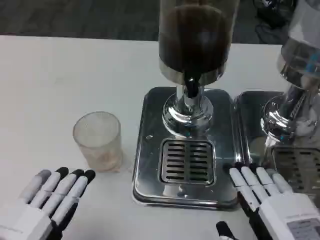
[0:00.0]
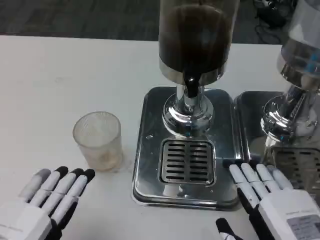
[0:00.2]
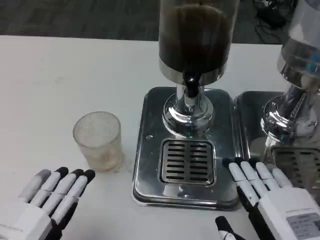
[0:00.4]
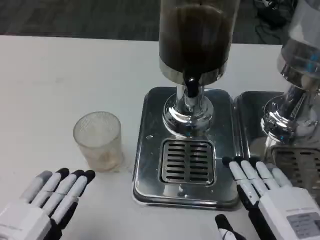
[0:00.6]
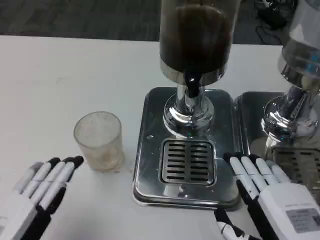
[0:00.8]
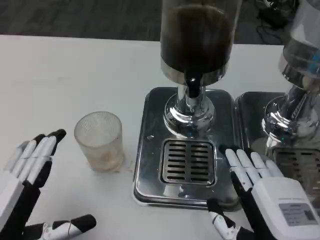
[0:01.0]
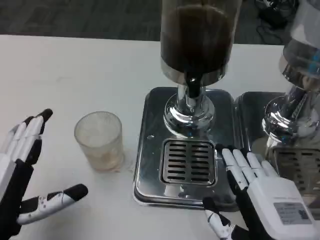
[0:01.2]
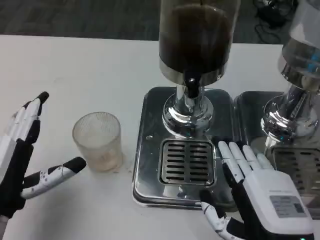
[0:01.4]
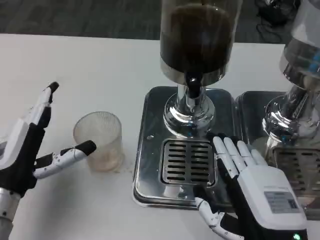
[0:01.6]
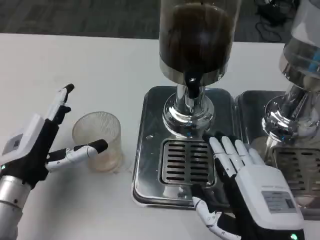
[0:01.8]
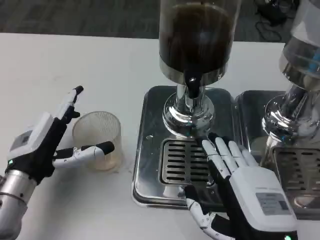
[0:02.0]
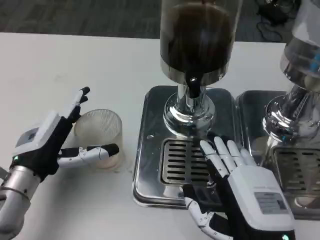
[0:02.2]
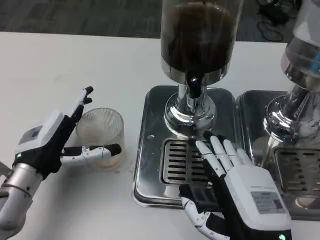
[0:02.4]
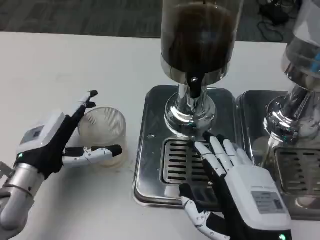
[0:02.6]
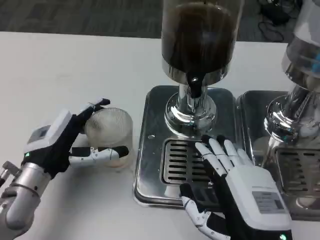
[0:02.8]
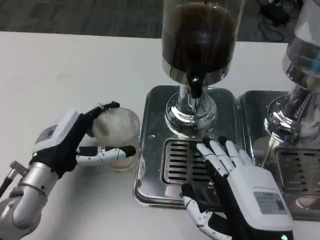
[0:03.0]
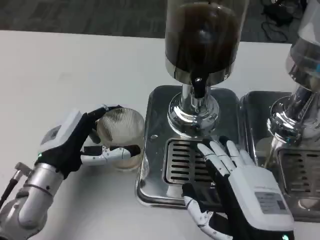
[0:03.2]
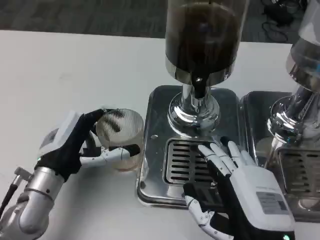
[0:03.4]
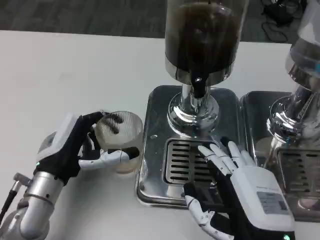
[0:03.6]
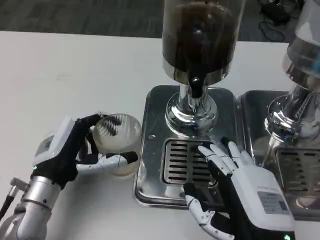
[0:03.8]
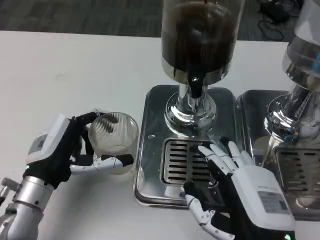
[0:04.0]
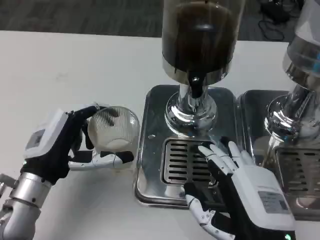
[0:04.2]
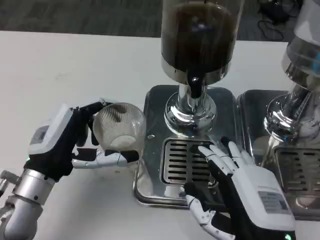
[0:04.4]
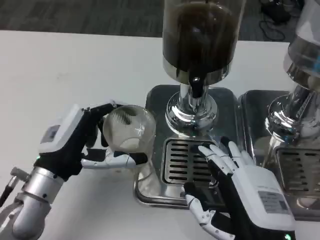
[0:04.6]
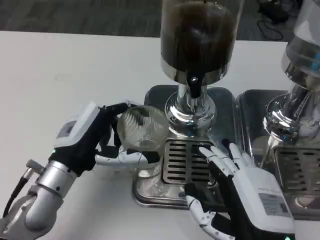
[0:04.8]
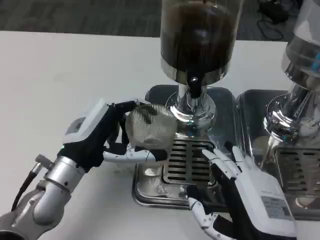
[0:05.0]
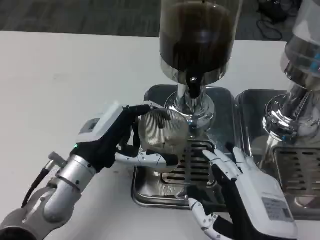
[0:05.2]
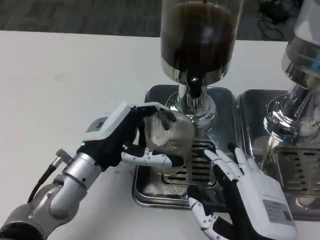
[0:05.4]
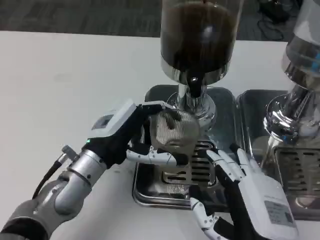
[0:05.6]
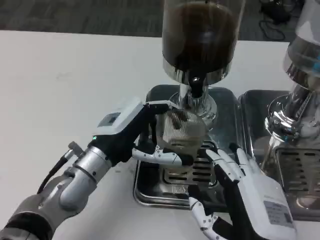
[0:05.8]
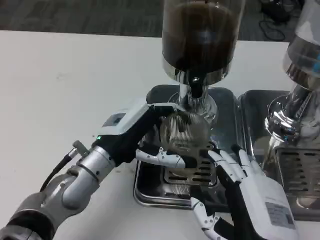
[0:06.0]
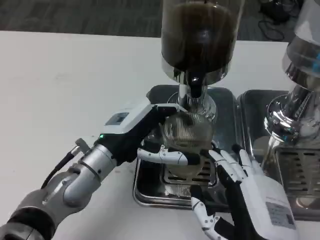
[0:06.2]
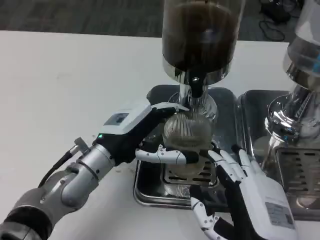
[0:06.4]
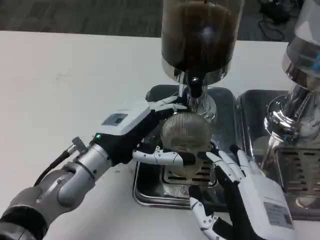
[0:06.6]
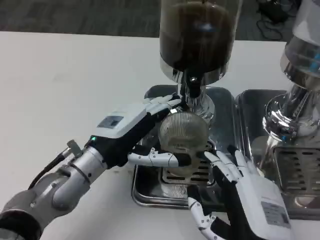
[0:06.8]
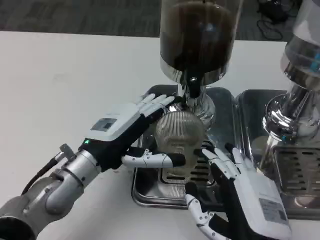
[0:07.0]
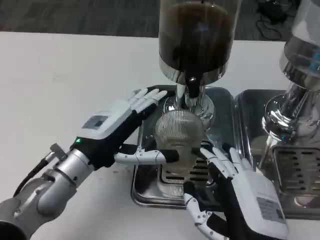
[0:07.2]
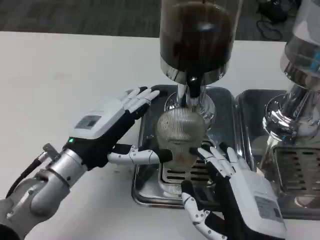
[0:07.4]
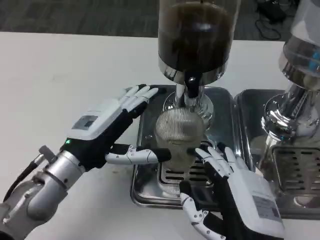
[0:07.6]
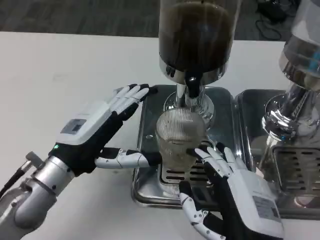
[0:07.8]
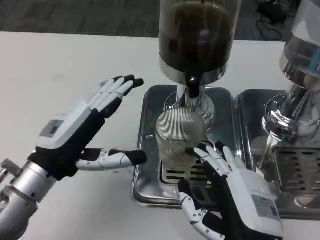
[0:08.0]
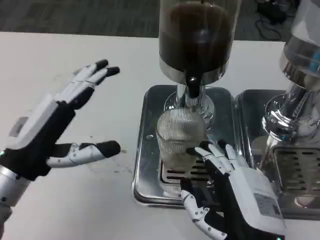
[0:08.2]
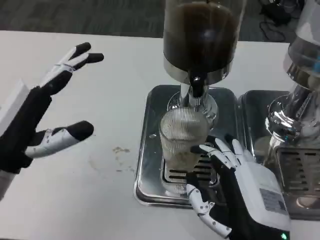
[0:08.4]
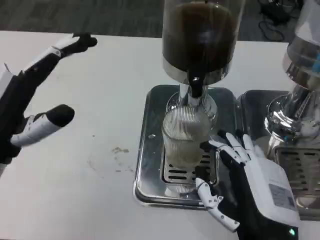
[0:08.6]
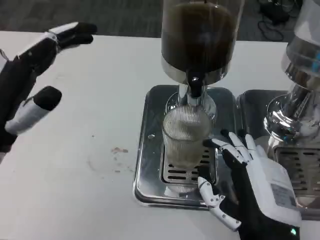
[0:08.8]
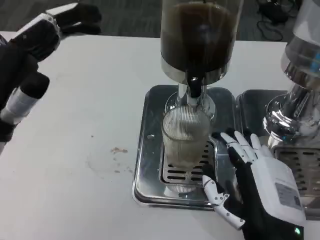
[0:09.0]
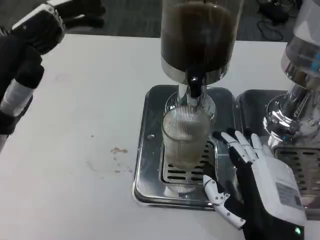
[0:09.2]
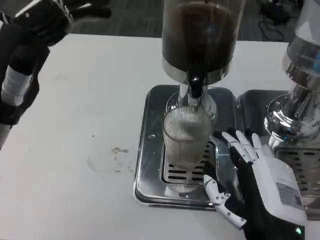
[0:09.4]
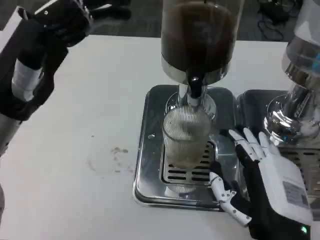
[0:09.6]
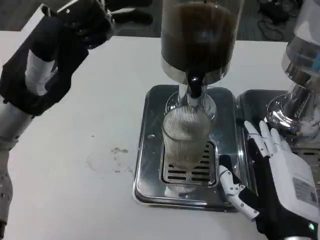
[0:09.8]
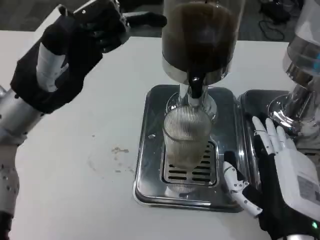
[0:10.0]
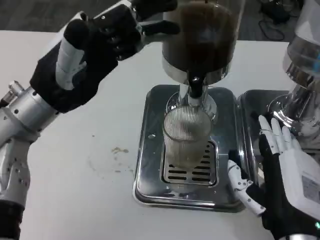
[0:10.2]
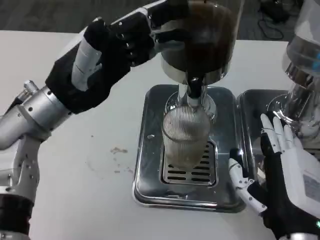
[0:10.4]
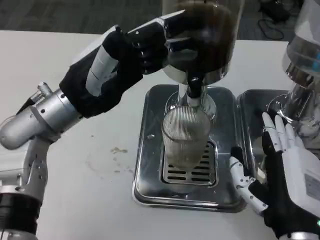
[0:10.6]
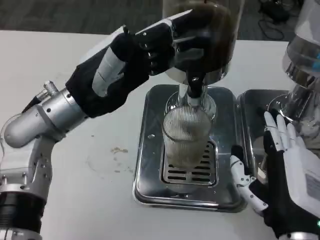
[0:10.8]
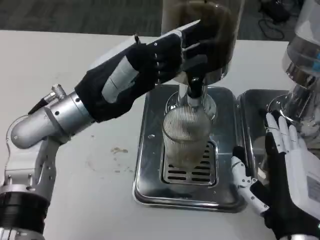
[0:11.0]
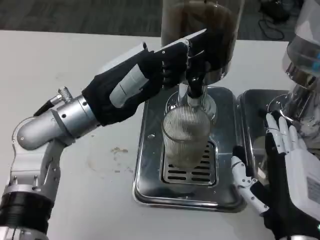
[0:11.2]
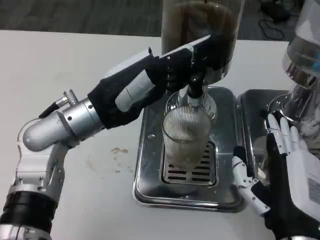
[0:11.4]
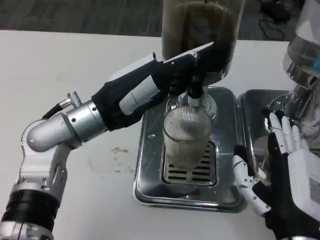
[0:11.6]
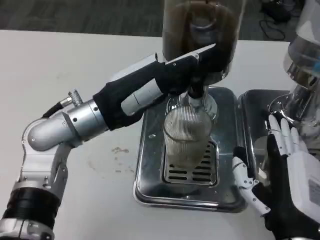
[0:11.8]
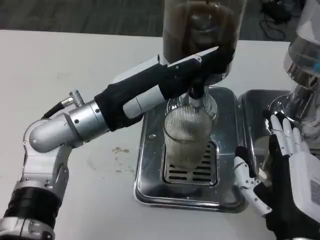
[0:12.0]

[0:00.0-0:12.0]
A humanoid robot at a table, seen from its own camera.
Task of the whole recording: Grasp the cup under the faucet to collect the drink, then remove the cup.
0:00.0 to 0:01.6: The right hand moves some 5 cm. The left hand heads forward, covering about 15 cm.
0:01.6 to 0:03.0: The left hand moves roughly 5 cm.
0:03.0 to 0:04.4: The hands stay close to where they were, moving slightly.
0:04.4 to 0:06.0: The left hand shifts roughly 5 cm to the right.
0:07.6 to 0:09.0: The left hand moves upward and to the left, roughly 10 cm.
0:09.0 to 0:10.4: The left hand heads forward and to the right, covering approximately 10 cm.

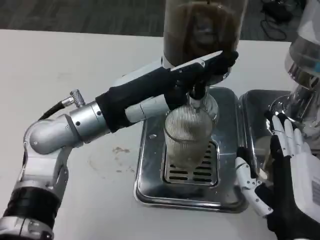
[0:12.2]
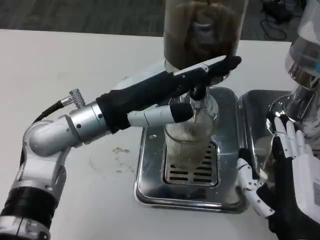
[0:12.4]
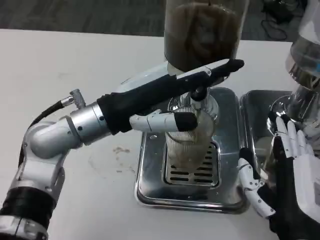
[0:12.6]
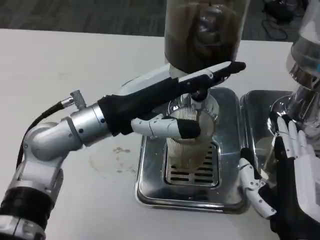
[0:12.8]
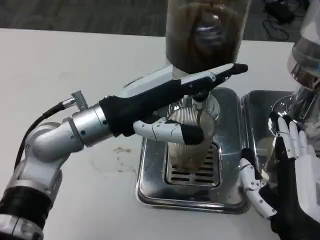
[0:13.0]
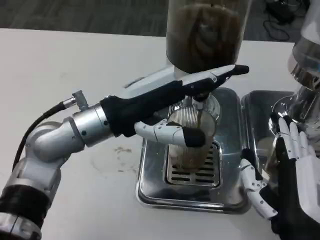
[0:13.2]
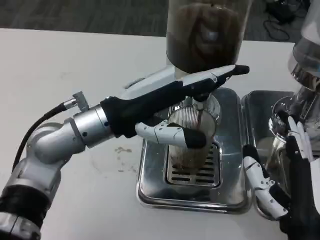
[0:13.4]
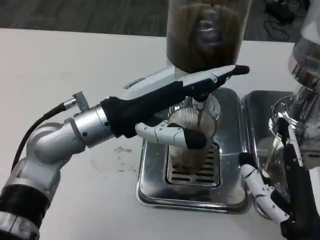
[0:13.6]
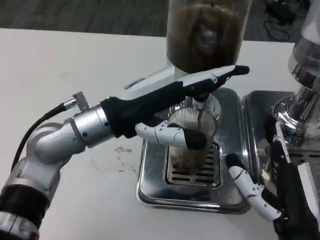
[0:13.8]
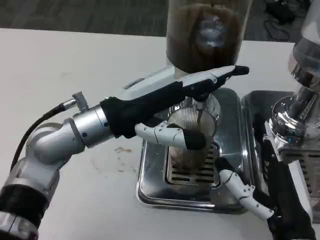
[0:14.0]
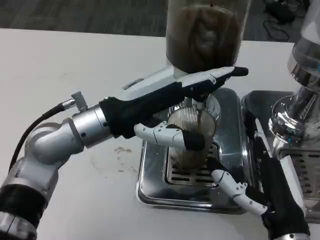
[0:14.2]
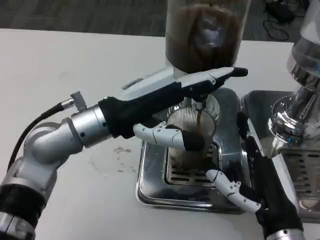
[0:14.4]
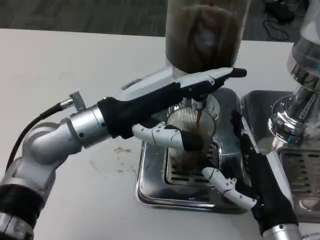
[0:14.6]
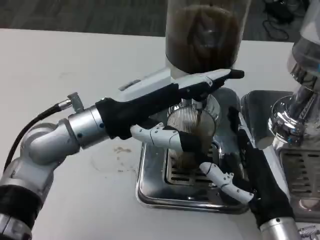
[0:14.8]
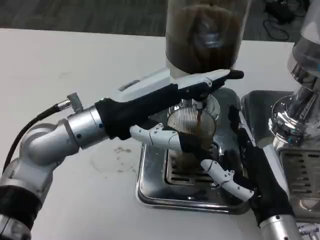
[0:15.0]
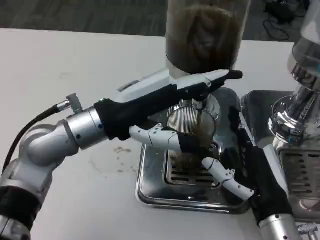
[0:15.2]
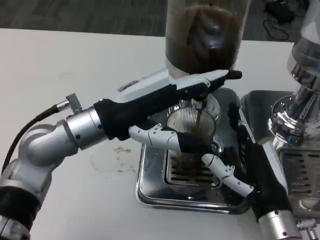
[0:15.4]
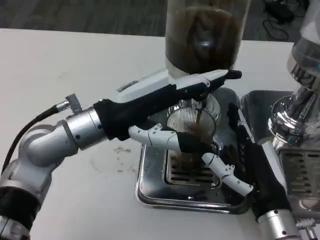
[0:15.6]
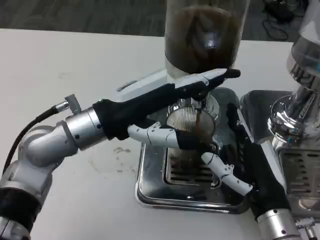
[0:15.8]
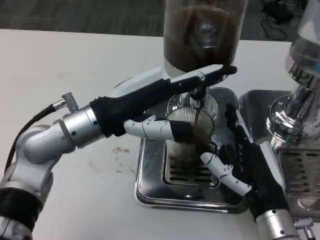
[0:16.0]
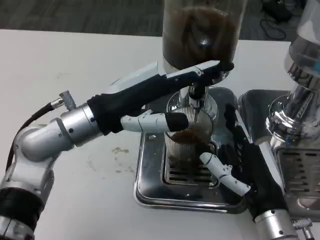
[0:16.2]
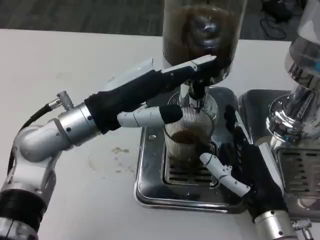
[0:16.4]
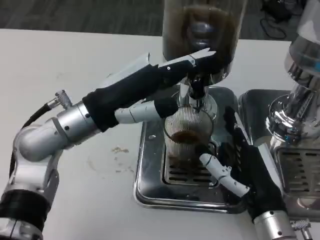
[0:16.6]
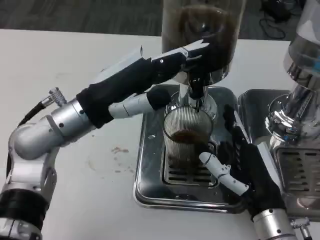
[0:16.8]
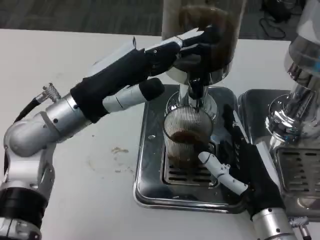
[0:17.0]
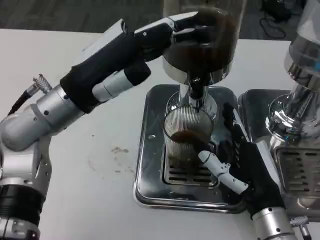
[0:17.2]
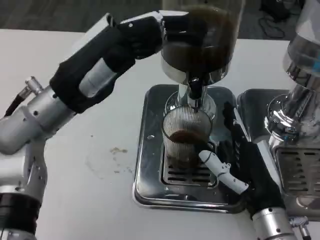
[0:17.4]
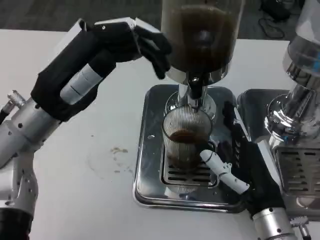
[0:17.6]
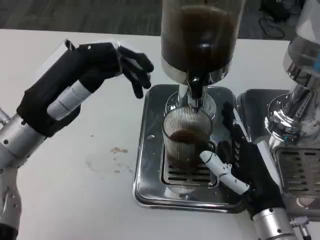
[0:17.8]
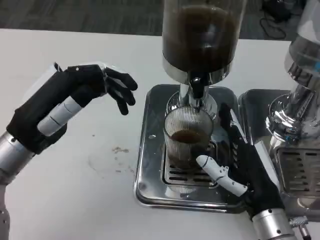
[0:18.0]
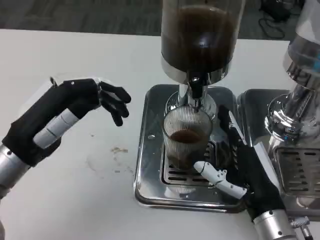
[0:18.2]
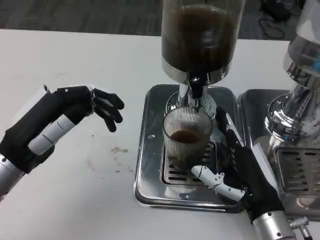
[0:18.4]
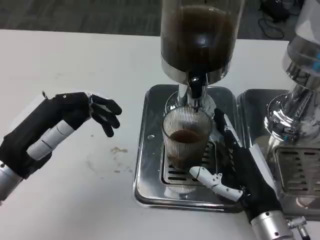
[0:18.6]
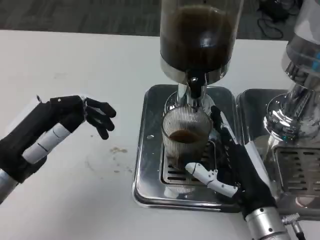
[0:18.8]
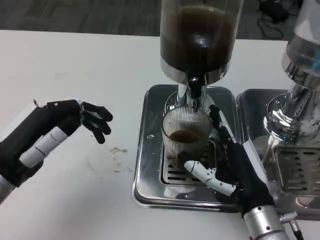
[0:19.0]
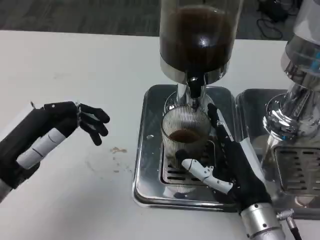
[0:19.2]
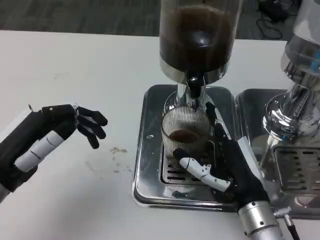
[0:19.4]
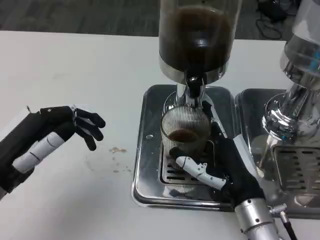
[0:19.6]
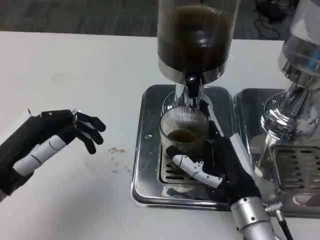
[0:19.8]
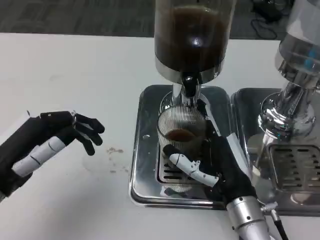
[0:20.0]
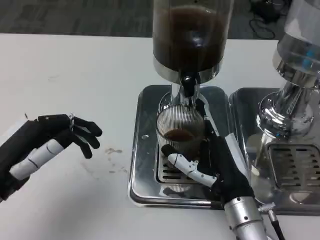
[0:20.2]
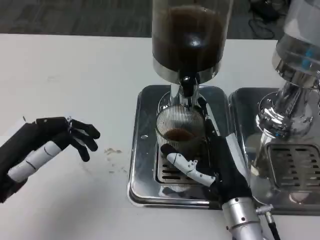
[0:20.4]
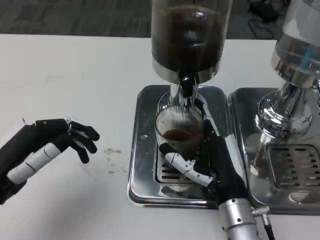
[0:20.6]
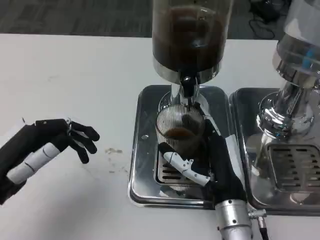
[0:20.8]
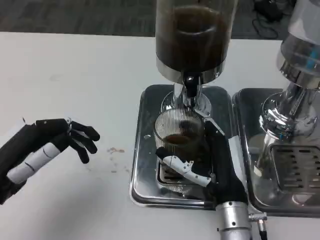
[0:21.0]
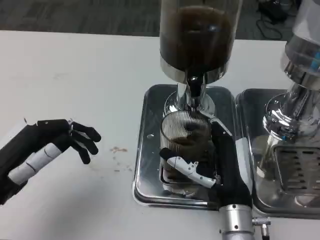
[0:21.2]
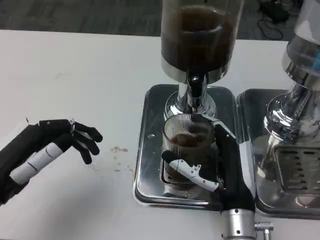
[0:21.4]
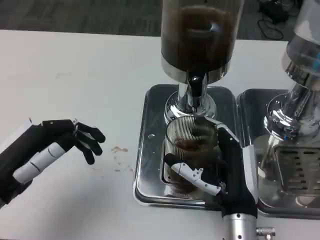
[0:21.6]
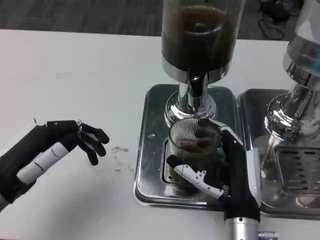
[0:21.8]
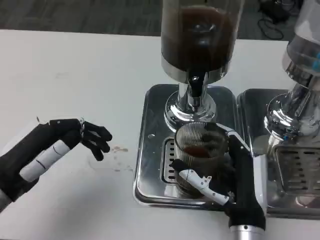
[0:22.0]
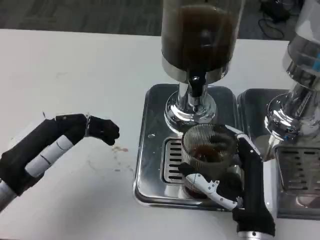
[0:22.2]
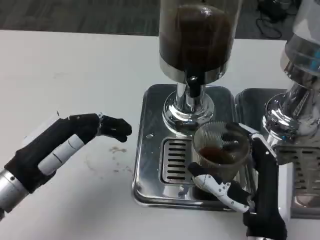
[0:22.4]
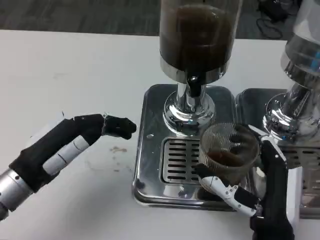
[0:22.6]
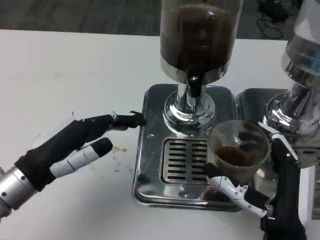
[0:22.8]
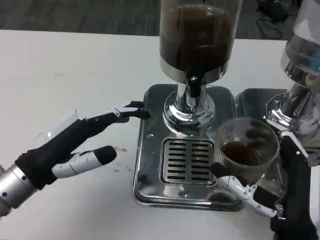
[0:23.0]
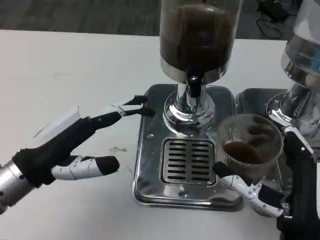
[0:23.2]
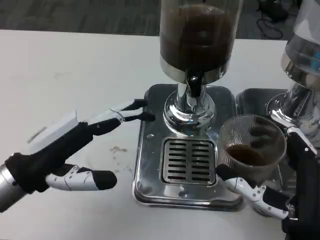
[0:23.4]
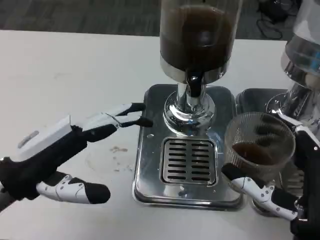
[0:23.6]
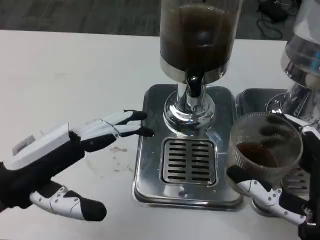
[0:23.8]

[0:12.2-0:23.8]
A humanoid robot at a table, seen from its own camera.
Task of the whole recording: Grasp the cup under the faucet to collect the drink, then remove the cup.
0:13.6 to 0:15.0: The right hand goes approximately 5 cm forward.
0:16.6 to 0:18.0: The left hand moves to the left, some 10 cm.
0:18.0 to 0:19.4: The left hand ends up approximately 5 cm from where it was.
0:21.0 to 0:22.4: The right hand heads backward, covering roughly 5 cm.
0:22.4 to 0:23.8: The right hand heads upward and to the right, covering roughly 10 cm. Meanwhile the left hand heads upward, covering approximately 5 cm.
